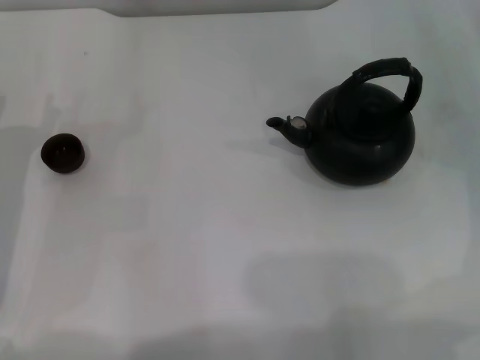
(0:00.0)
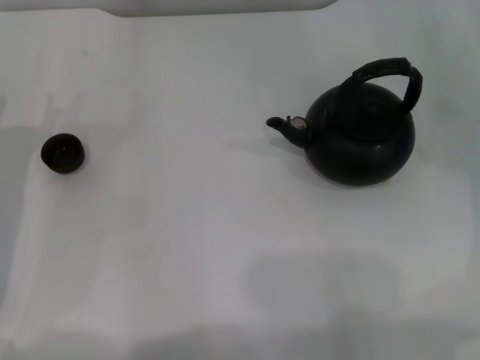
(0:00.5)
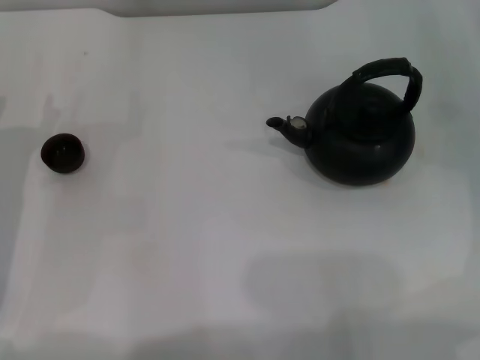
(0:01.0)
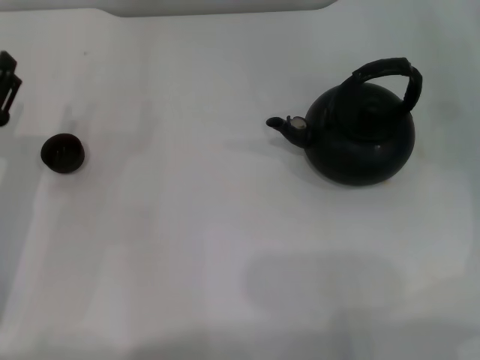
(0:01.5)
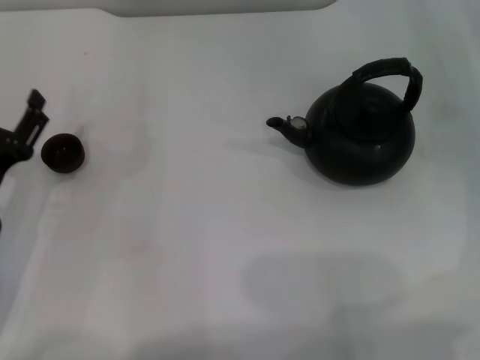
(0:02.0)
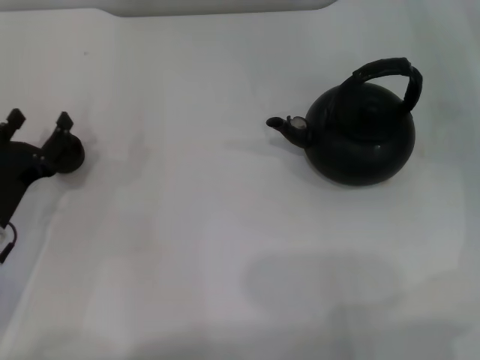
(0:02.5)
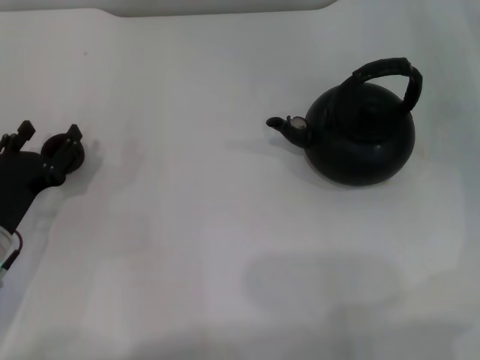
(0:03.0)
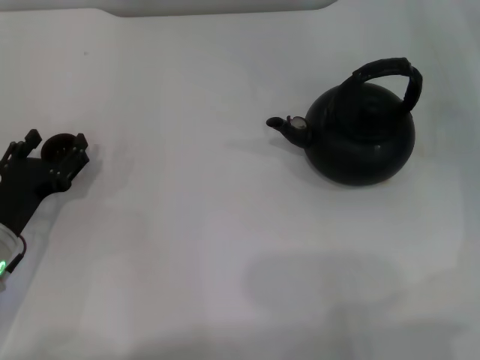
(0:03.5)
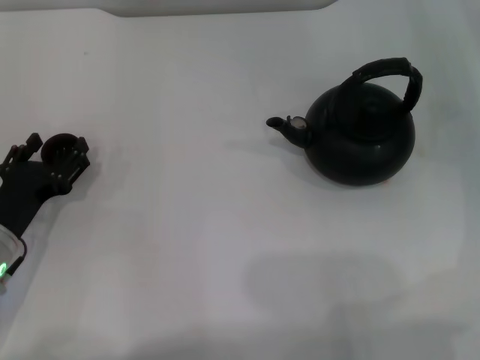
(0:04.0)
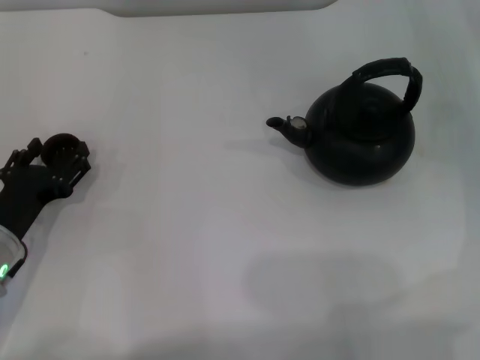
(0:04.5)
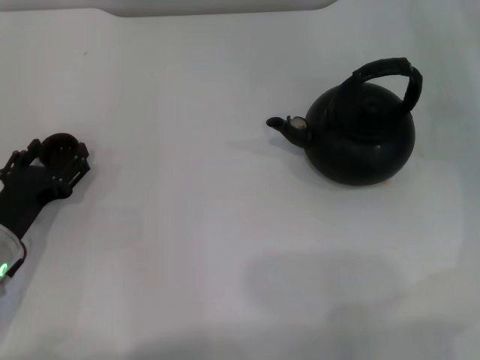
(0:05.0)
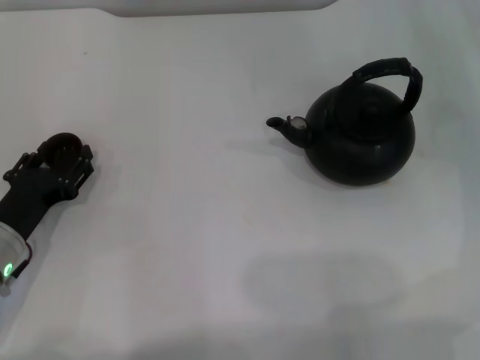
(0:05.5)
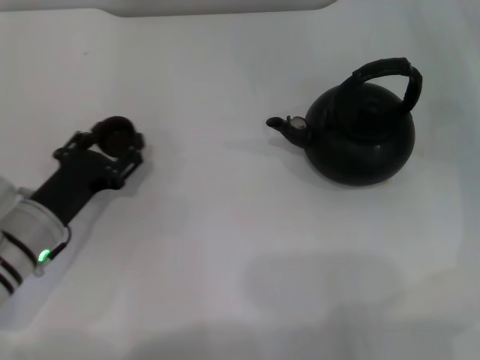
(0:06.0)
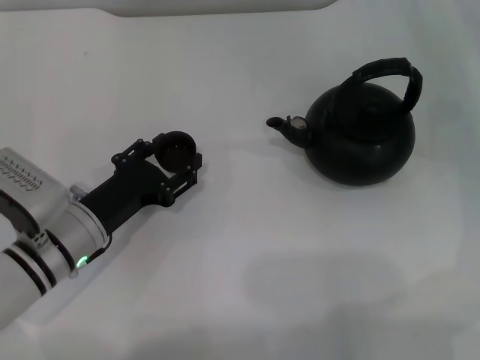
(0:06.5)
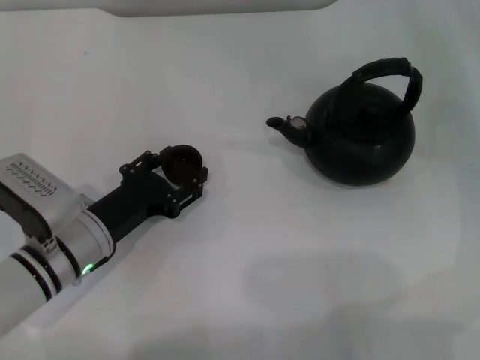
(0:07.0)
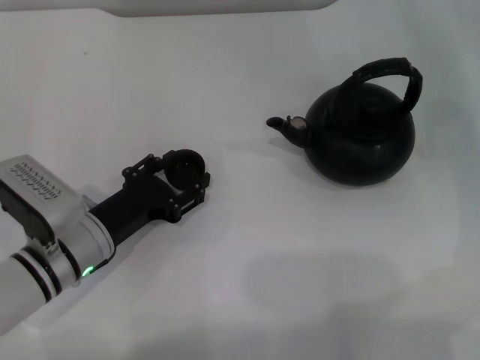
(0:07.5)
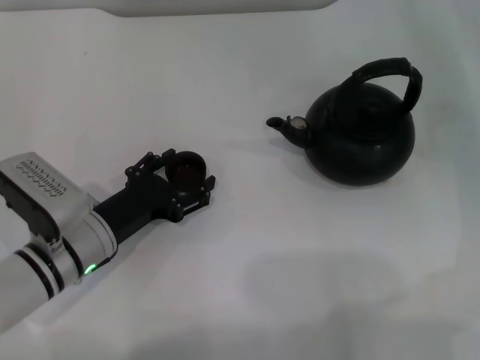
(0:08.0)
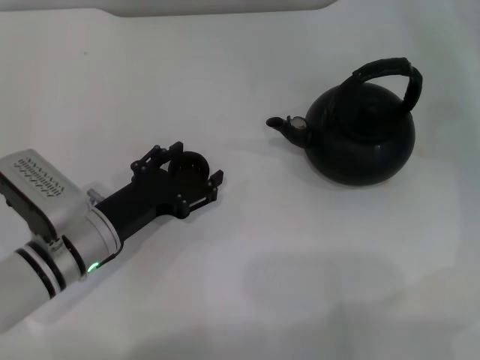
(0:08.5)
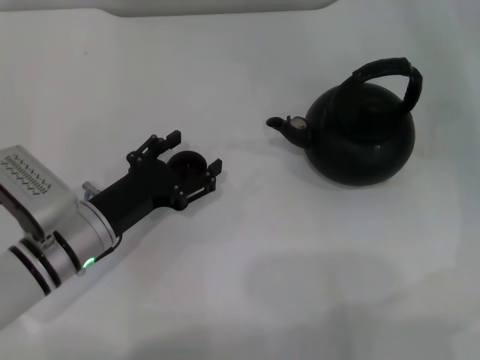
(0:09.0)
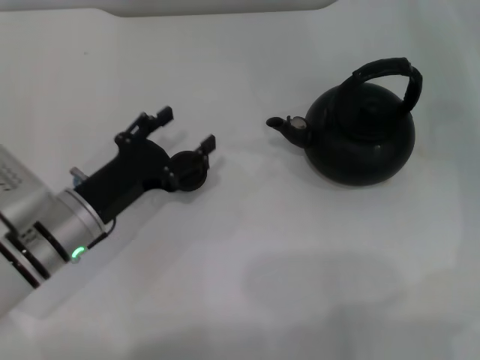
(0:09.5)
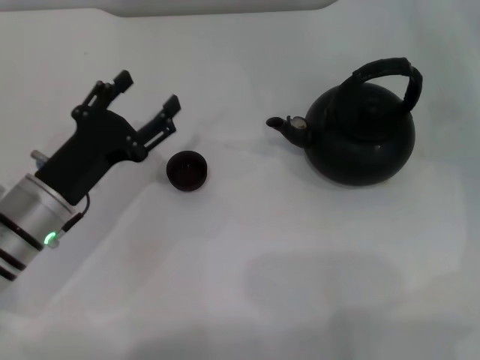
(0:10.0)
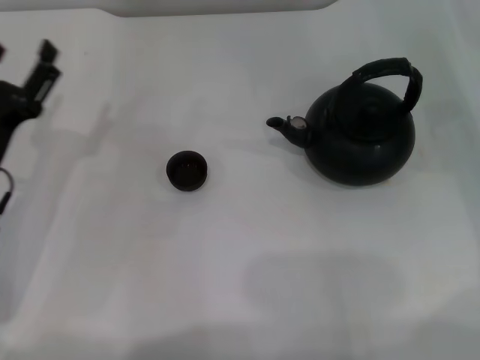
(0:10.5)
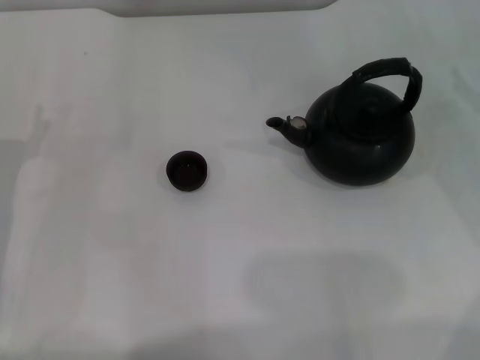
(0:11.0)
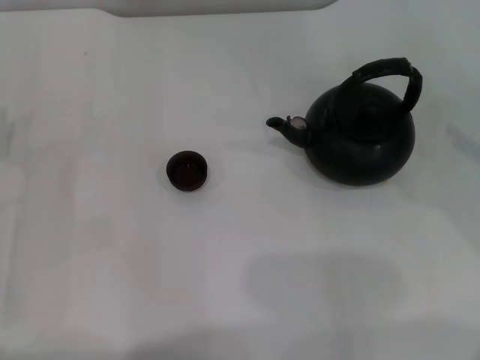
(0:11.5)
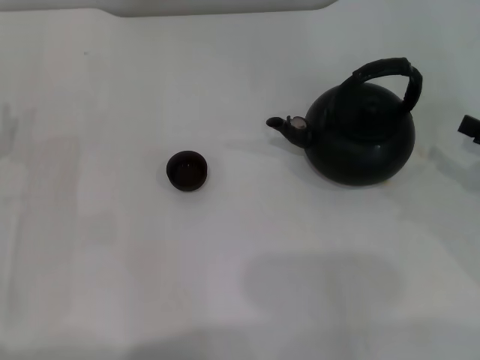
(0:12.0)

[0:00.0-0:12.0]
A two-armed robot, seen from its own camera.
Task of the whole recording: Grasp the handle of the teapot with one hand and pour tea into the teacup.
Step, 0:00.0 to 0:06.0: Pick up the teacup with the left gripper.
Step, 0:06.5 to 0:08.5: Place the teacup in the center of view with the left gripper.
0:00.0 to 0:02.0: The grippers make only small movements.
0:02.0 to 0:04.0: The grippers stay close to where they were, moving slightly.
0:04.0 to 0:06.0: The left gripper closes its fingers.
0:06.0 to 0:08.0: The left gripper opens.
0:10.0 to 0:12.0: The right gripper travels backward by about 10 cm. The left gripper goes approximately 10 cm to the left.

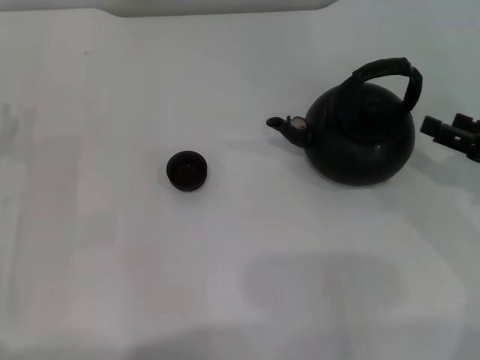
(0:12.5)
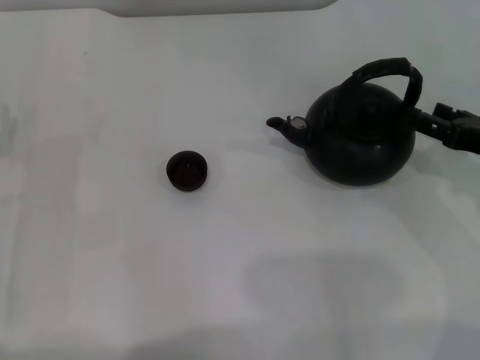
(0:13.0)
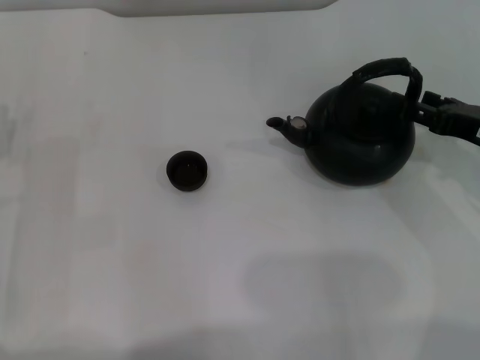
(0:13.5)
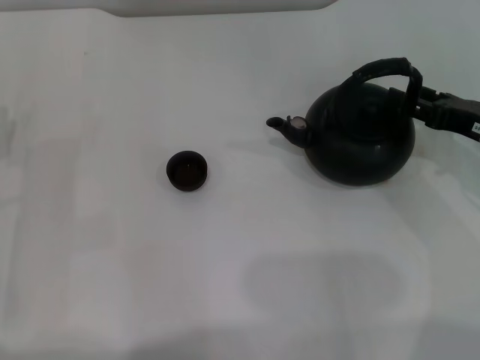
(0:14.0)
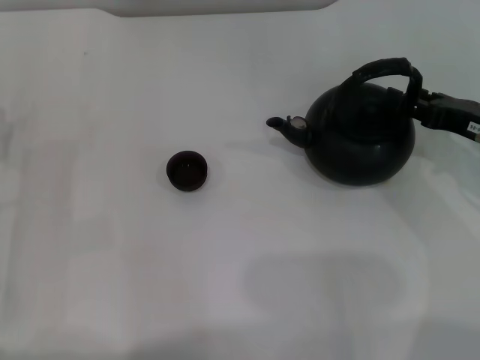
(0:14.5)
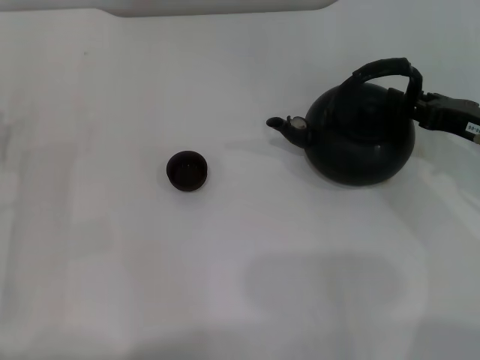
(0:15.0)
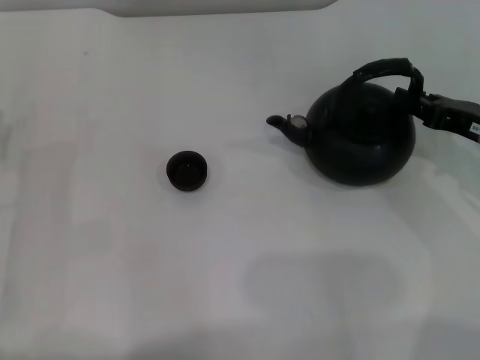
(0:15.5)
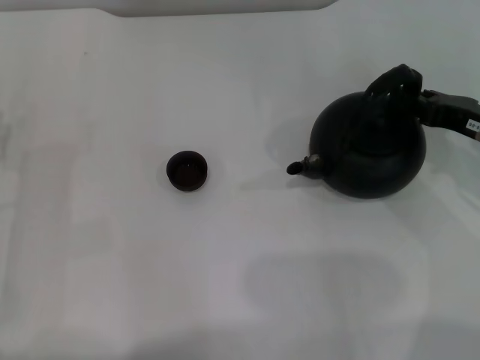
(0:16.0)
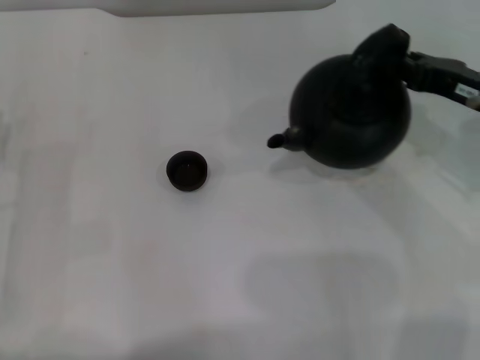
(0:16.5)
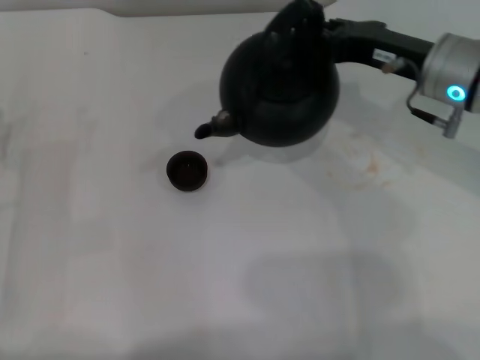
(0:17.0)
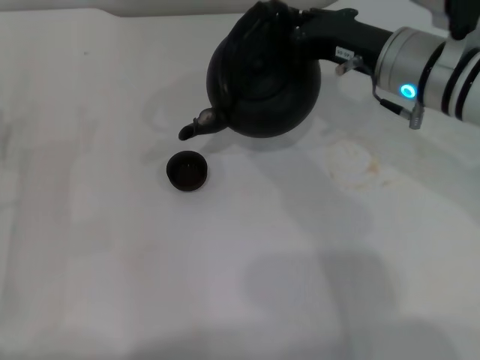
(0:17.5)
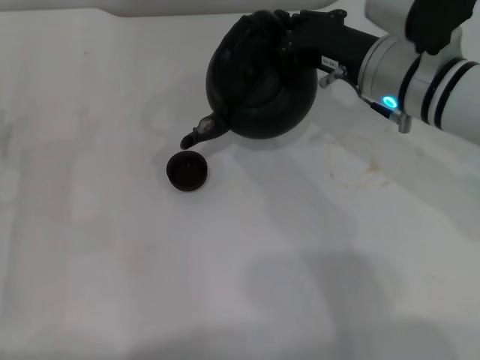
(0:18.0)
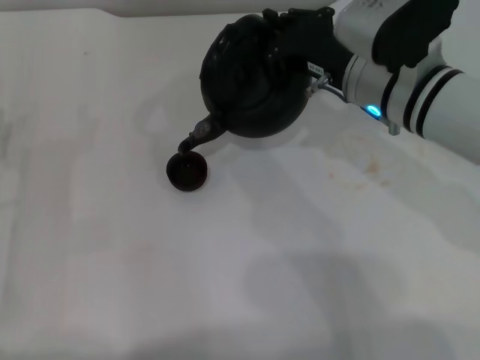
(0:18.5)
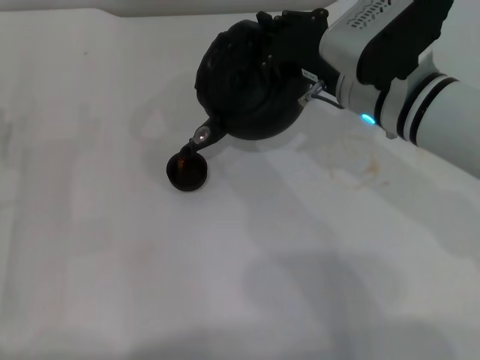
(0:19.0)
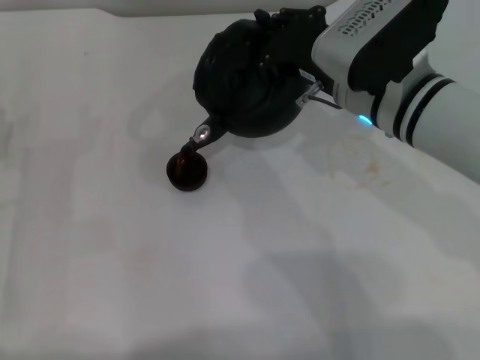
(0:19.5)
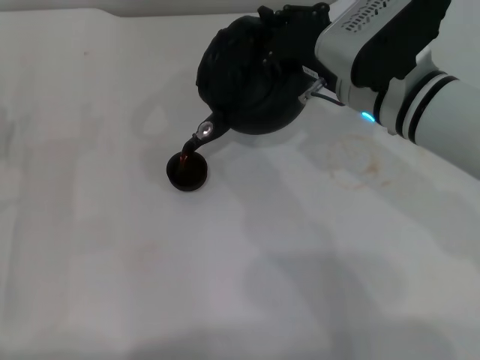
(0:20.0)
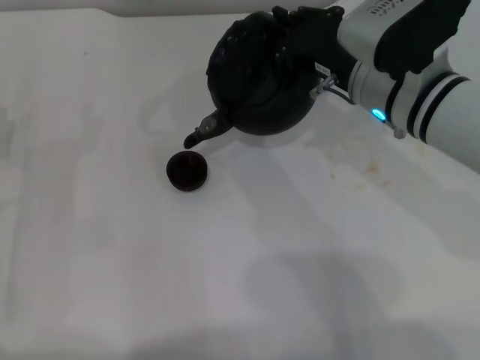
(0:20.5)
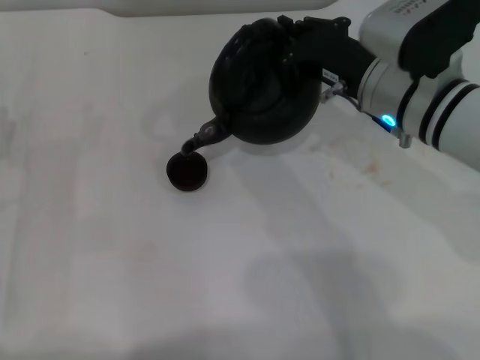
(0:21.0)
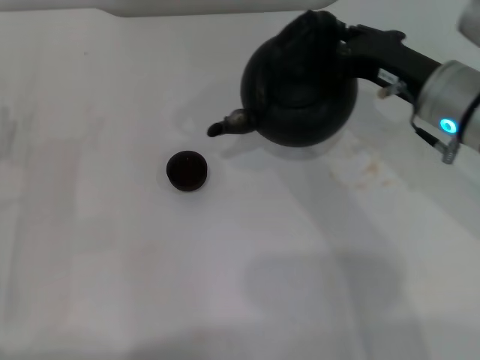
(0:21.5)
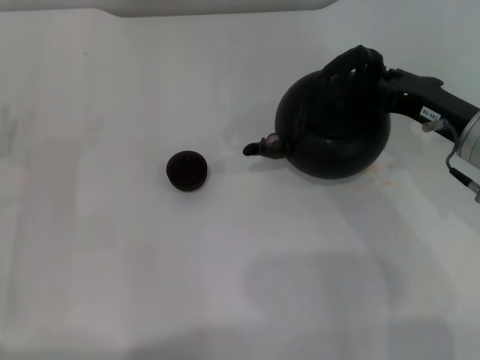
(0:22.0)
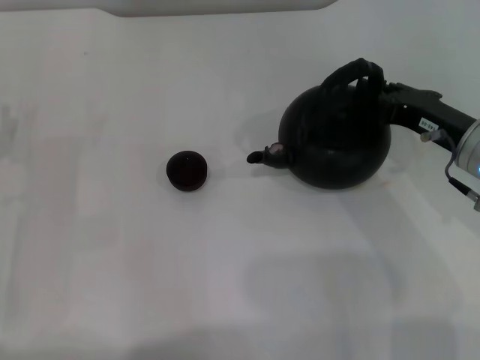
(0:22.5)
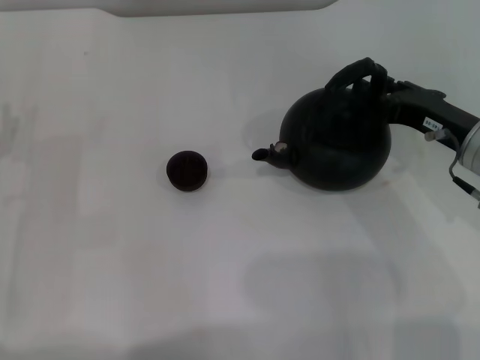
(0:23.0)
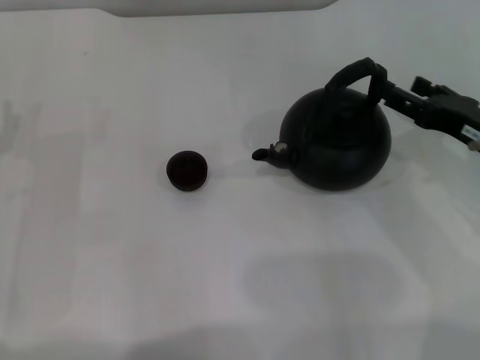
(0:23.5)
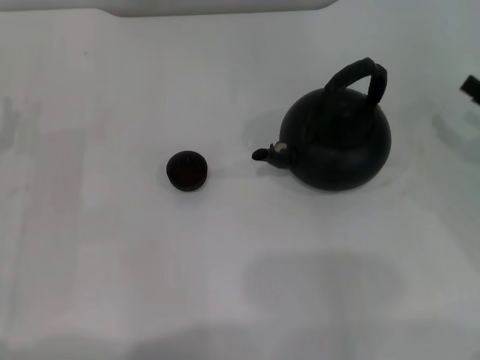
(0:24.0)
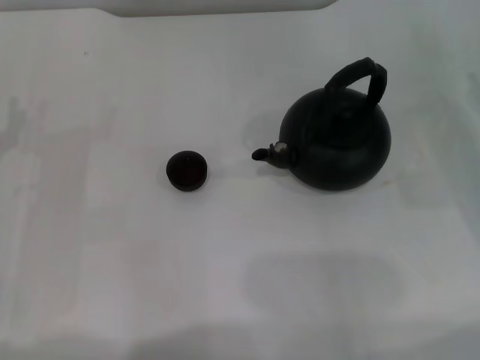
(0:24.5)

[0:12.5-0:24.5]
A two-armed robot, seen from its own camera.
Task of the whole recording: Grasp the handle of the teapot with one hand and pour tea into the teacup.
Step, 0:12.5 to 0:16.0: Pick up the teapot with the right gripper.
Step, 0:17.0 to 0:21.0: Pour tea into the teacup with the right gripper.
Step, 0:21.5 to 0:23.5: Put down the teapot with the right gripper.
0:12.5 to 0:14.5: The right gripper moves approximately 5 cm.
0:14.5 to 0:16.5: The right gripper closes up.
0:16.5 to 0:18.5: The right gripper travels to the left by some 15 cm.
0:18.5 to 0:20.5: The grippers move only a little.
0:20.5 to 0:22.5: The right gripper is displaced to the right and downward by approximately 10 cm.
0:22.5 to 0:24.5: The right gripper moves to the right, roughly 10 cm, and opens up.

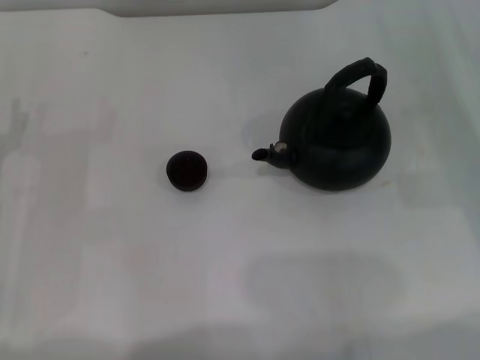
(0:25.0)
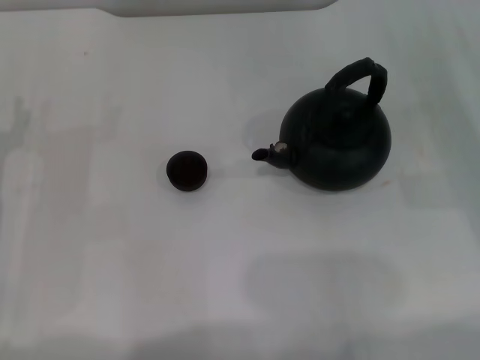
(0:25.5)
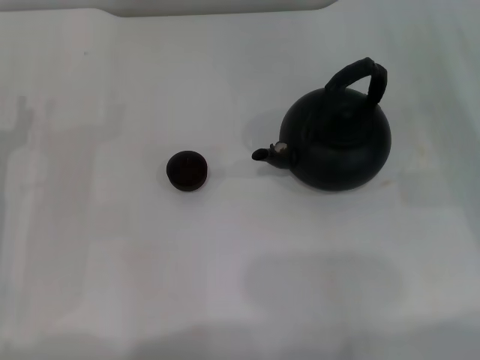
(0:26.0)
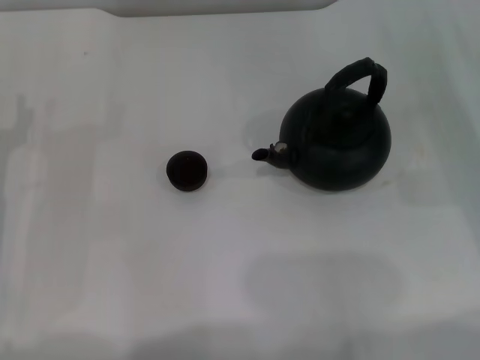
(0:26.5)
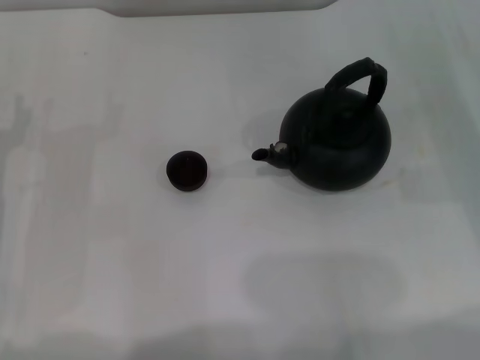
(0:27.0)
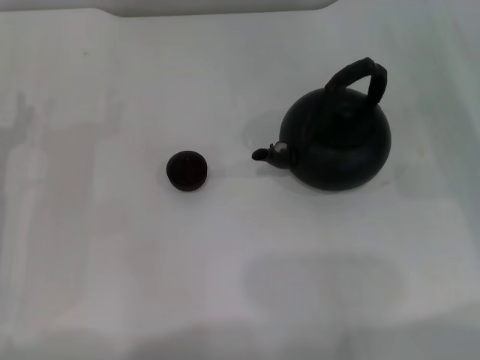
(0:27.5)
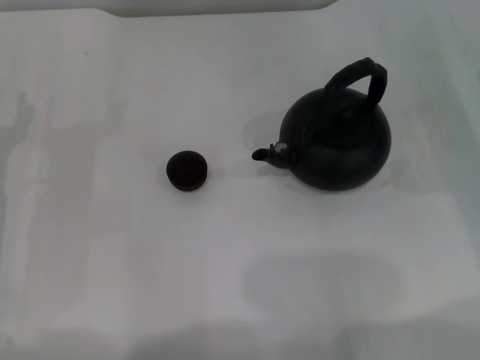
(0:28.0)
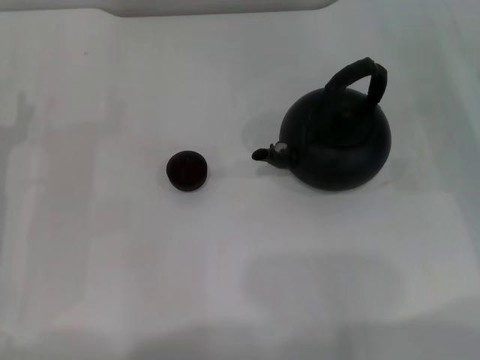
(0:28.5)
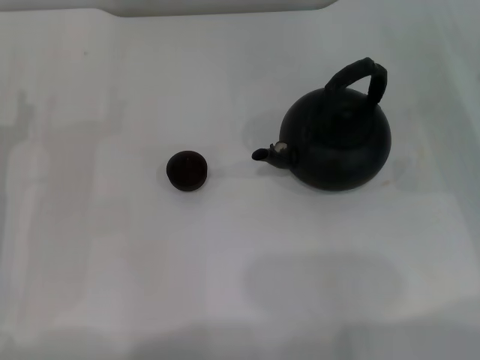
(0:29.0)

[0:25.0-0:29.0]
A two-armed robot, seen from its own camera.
Task of the whole recording: Grasp the handle of the teapot with one hand and pour tea into the teacup.
0:25.0 to 0:27.0: The two grippers keep their place.
0:27.0 to 0:29.0: Both grippers stay put.
